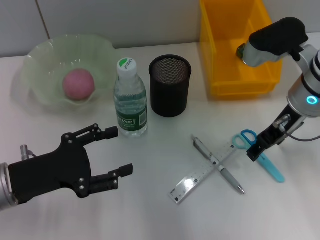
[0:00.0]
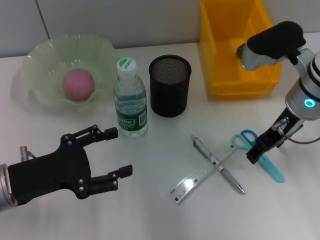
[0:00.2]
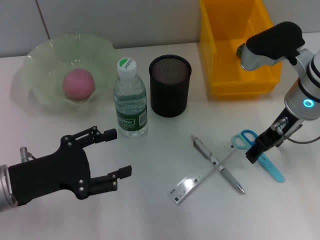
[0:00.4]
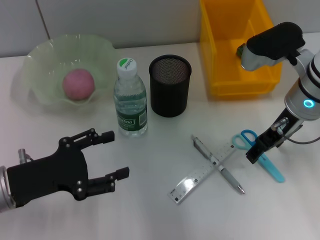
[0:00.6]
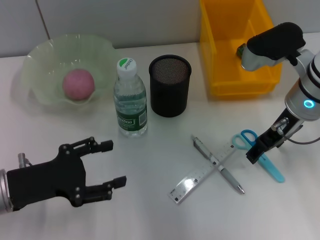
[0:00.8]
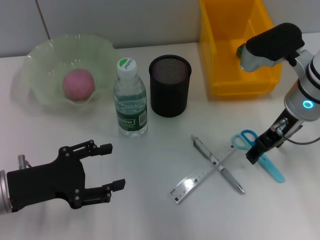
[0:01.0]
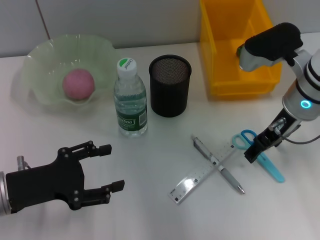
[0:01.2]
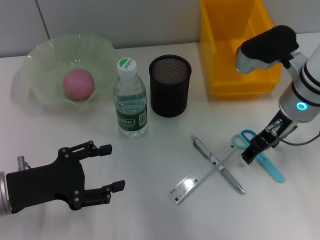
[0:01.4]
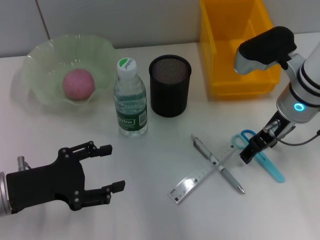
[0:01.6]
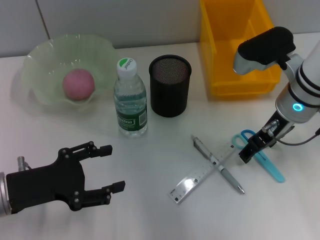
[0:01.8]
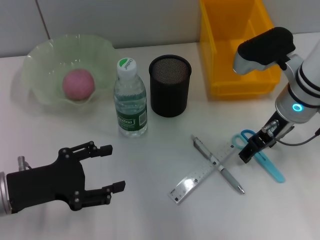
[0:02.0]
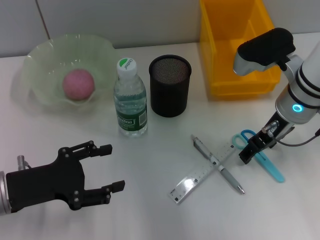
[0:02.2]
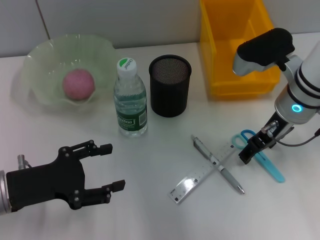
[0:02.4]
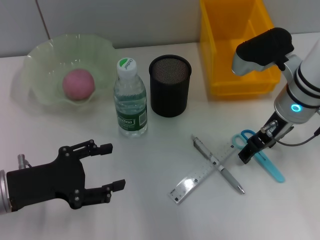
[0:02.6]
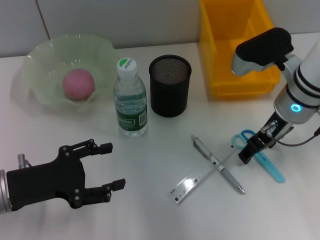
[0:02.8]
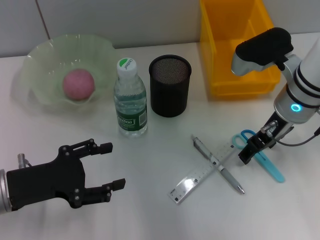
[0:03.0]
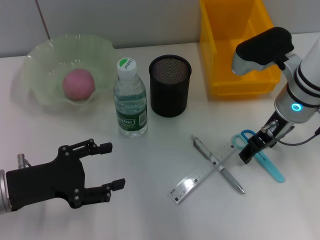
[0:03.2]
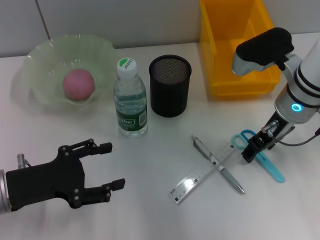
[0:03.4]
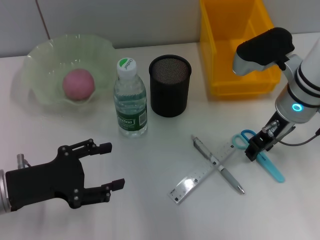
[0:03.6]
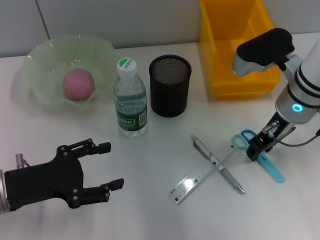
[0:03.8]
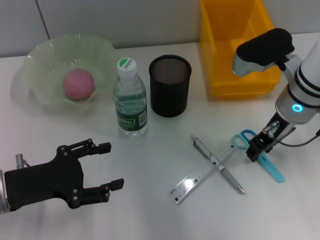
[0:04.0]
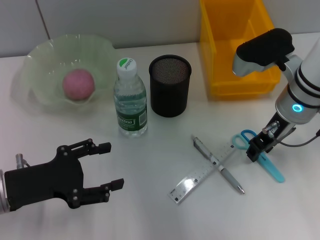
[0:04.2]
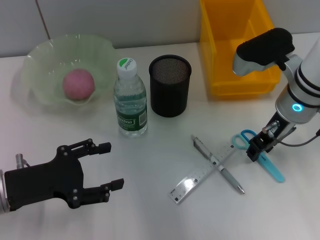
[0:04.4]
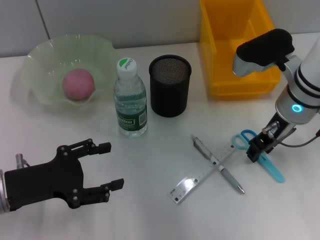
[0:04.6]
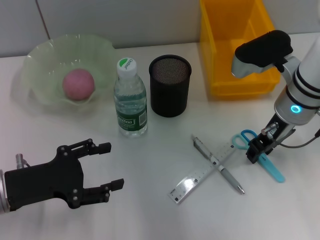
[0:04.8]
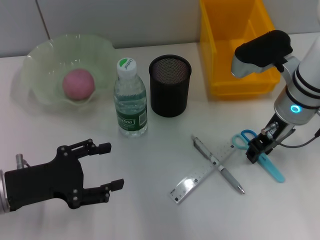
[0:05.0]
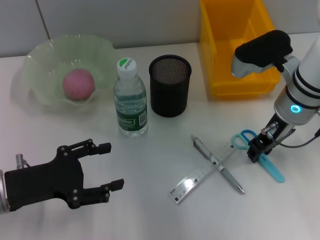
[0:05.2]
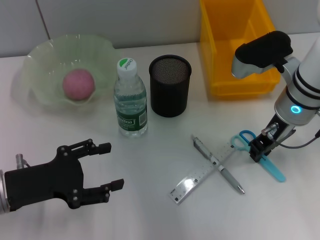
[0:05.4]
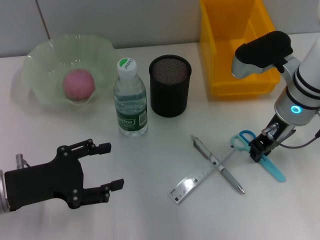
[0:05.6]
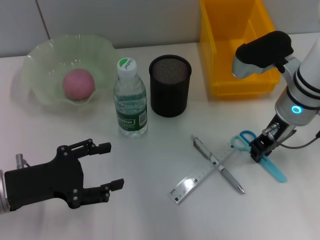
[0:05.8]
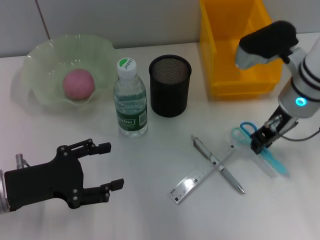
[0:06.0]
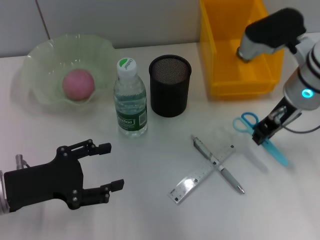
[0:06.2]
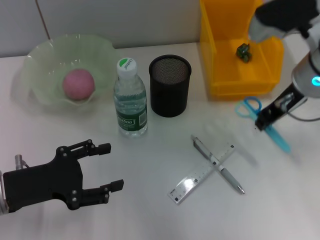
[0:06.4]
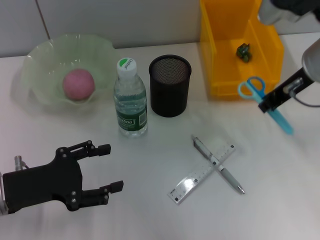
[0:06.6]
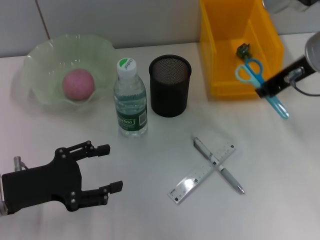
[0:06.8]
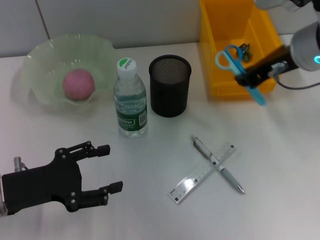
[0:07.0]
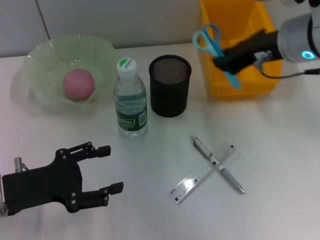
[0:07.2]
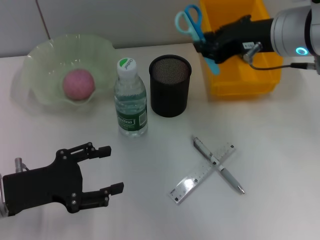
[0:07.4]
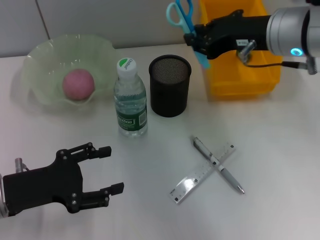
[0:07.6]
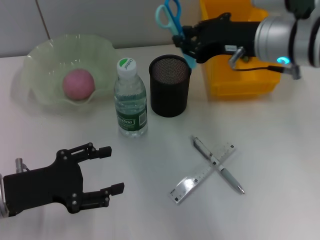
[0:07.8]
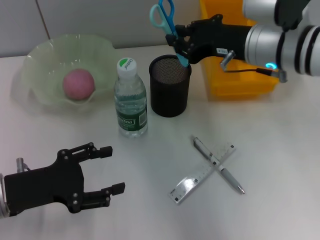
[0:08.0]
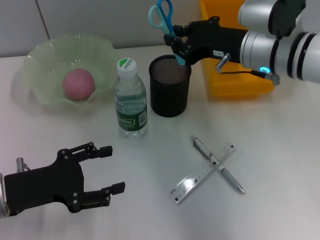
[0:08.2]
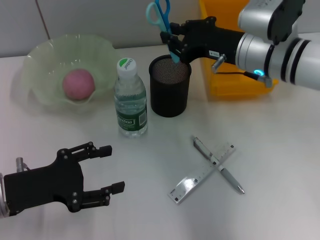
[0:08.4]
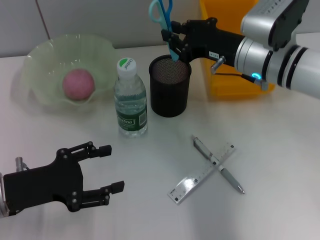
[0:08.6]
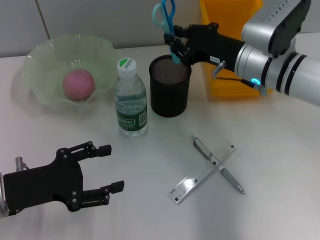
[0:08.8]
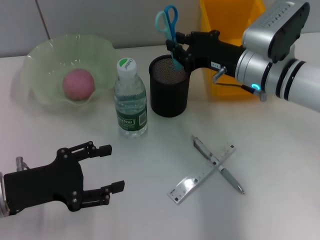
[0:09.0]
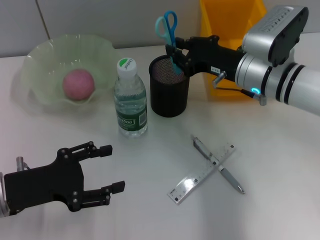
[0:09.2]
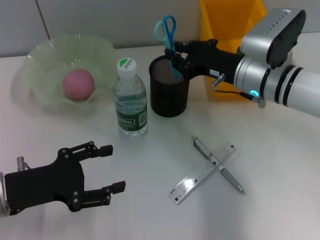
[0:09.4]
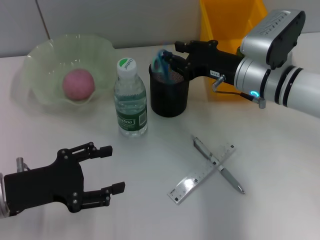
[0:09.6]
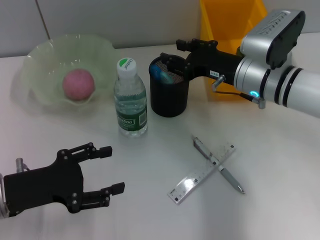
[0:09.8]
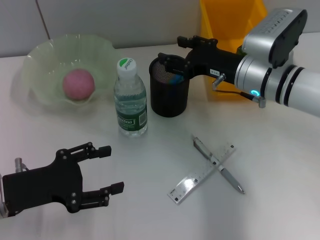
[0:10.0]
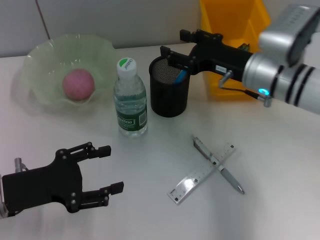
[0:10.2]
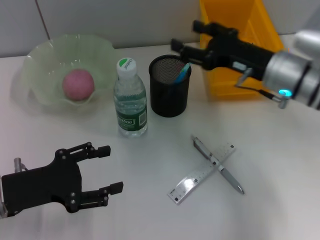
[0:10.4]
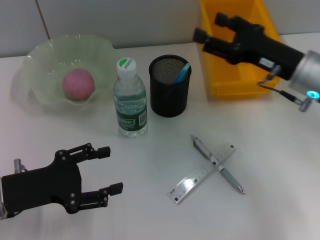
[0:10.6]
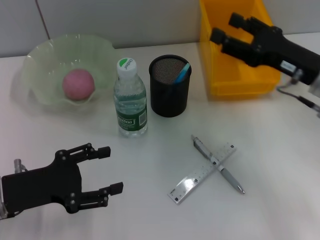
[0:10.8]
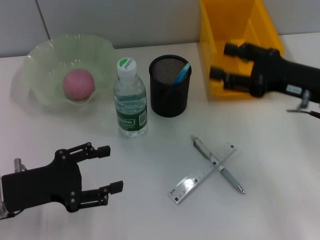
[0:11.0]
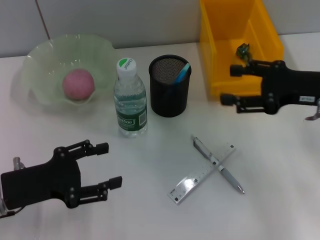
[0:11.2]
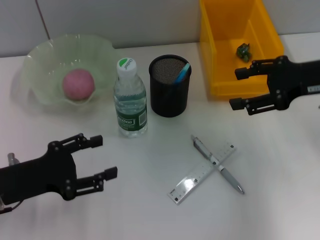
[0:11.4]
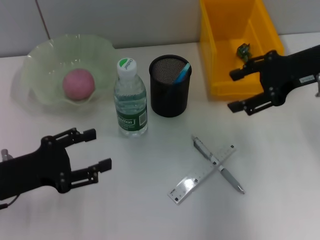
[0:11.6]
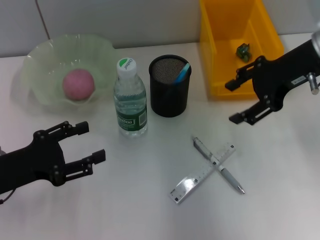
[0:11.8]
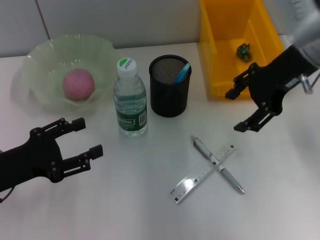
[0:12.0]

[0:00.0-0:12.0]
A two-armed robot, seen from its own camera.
Step, 0:00.0 to 0:05.4: Grab the blue scissors with the right hand.
Step, 0:05.8 to 0:09.4: Place the blue scissors into the pen holder with the right hand.
0:00.0 to 0:01.6: There are only small adjustments of the grippers.
0:01.6 to 0:03.0: Neither gripper changes place.
0:03.0 to 0:04.4: The right gripper closes its fingers.
0:04.4 to 0:06.0: The two grippers keep their place.
0:06.0 to 0:07.6: The right gripper moves upward, about 5 cm.
0:07.6 to 0:09.0: The right gripper heads downward, covering roughly 10 cm.
0:09.0 to 0:10.4: The right gripper opens up.
0:10.4 to 0:12.0: The right gripper shifts some 10 cm upward.

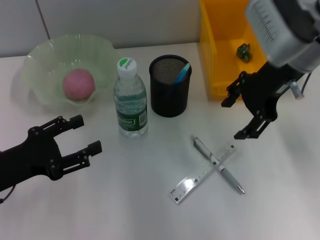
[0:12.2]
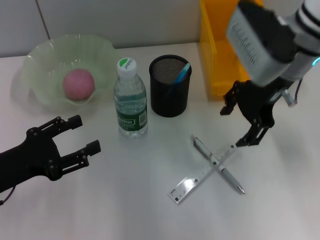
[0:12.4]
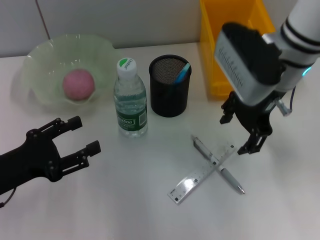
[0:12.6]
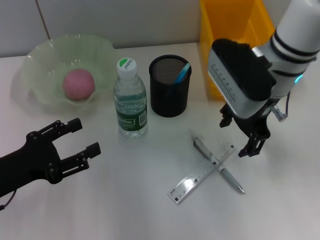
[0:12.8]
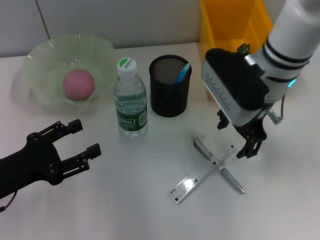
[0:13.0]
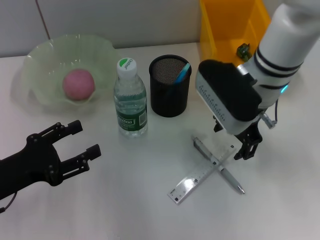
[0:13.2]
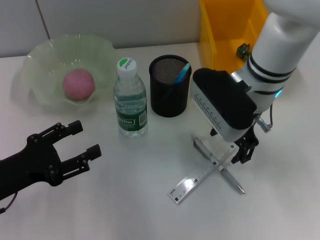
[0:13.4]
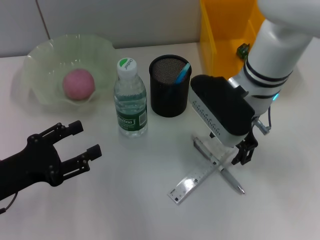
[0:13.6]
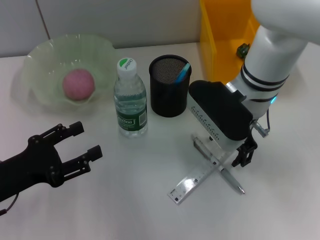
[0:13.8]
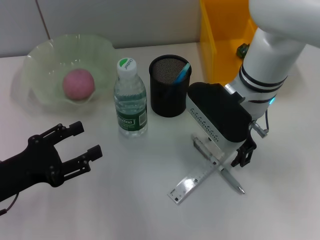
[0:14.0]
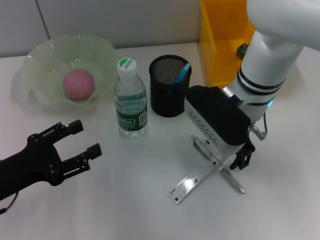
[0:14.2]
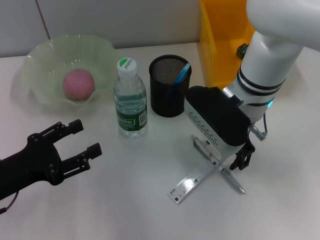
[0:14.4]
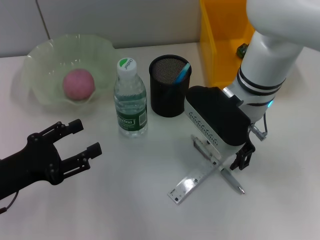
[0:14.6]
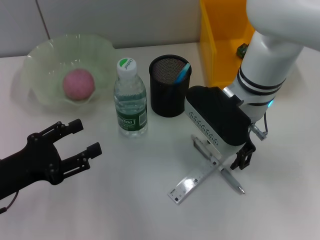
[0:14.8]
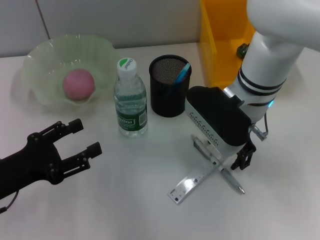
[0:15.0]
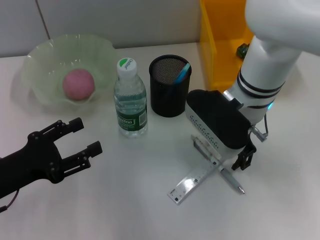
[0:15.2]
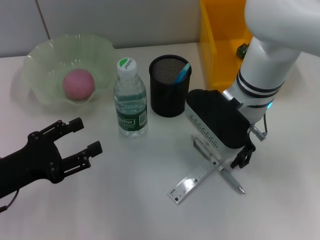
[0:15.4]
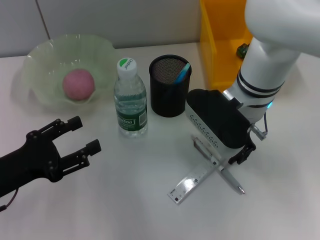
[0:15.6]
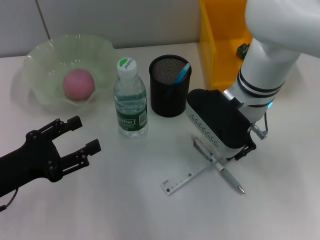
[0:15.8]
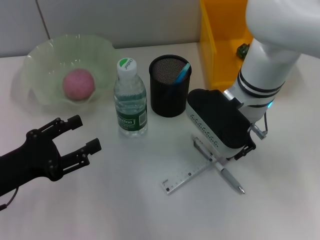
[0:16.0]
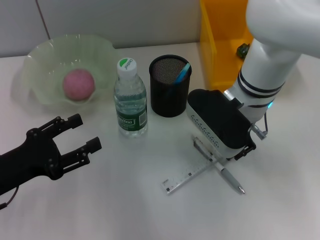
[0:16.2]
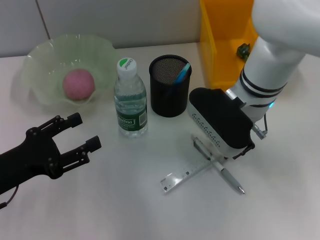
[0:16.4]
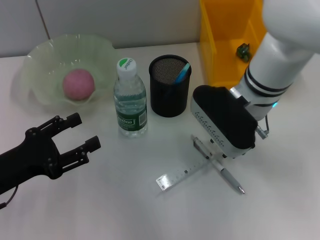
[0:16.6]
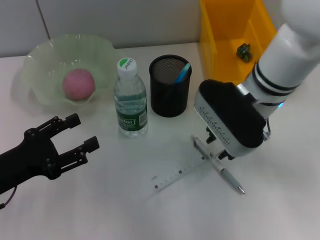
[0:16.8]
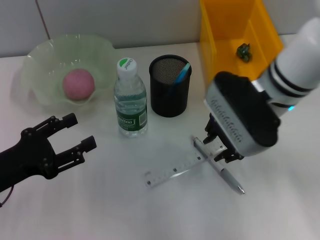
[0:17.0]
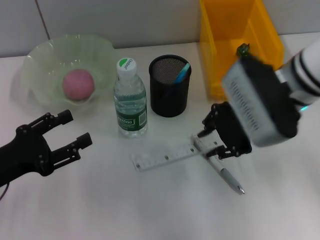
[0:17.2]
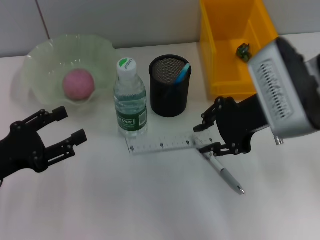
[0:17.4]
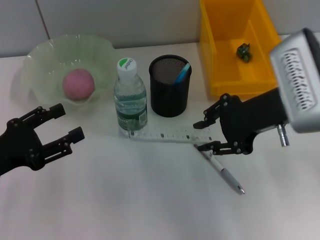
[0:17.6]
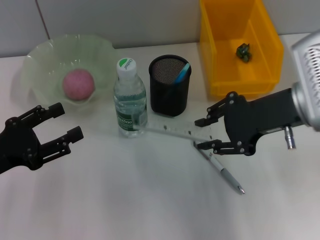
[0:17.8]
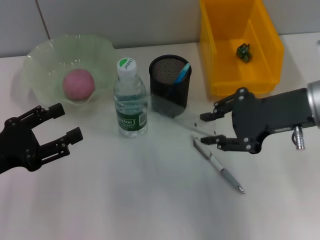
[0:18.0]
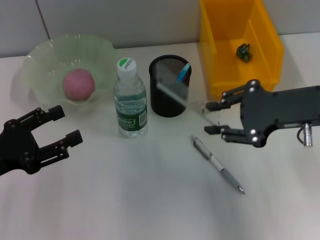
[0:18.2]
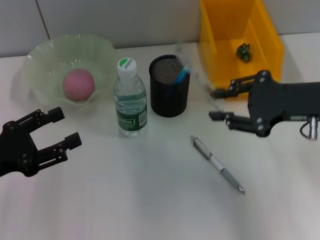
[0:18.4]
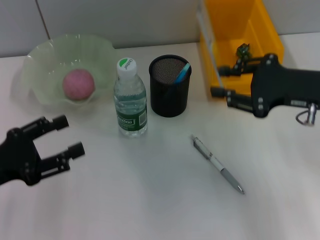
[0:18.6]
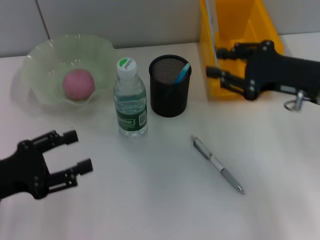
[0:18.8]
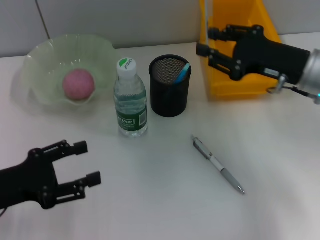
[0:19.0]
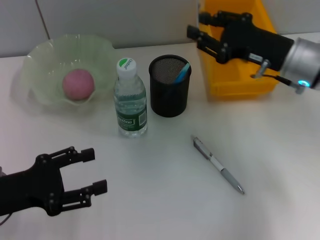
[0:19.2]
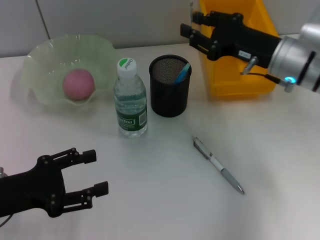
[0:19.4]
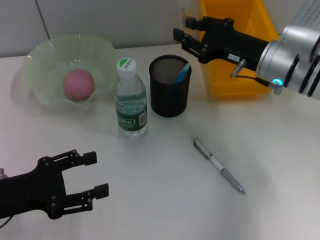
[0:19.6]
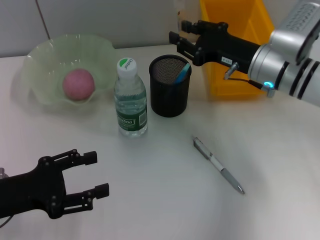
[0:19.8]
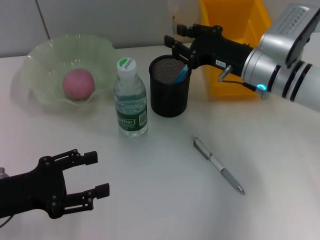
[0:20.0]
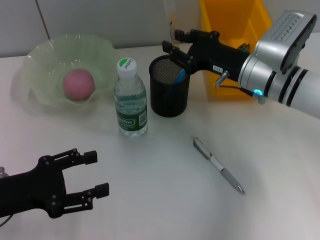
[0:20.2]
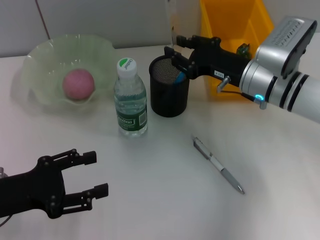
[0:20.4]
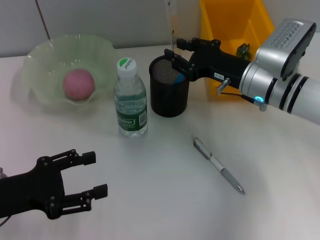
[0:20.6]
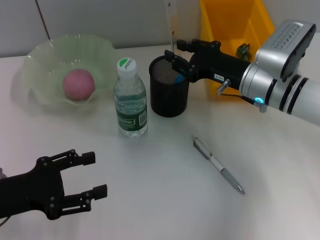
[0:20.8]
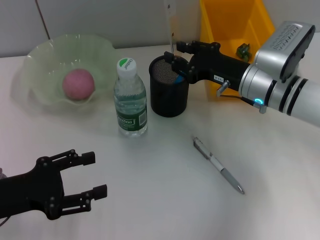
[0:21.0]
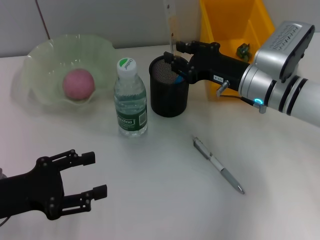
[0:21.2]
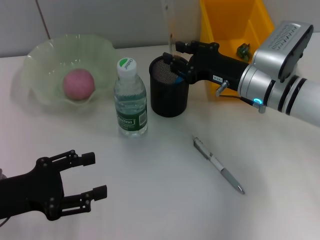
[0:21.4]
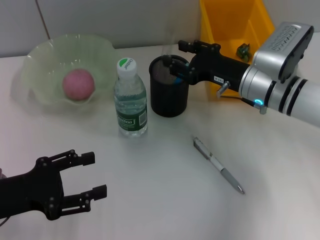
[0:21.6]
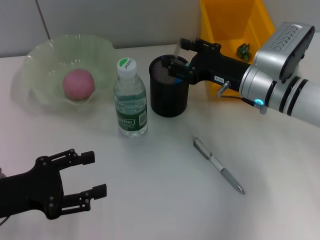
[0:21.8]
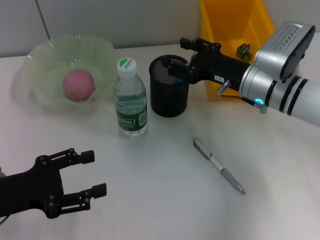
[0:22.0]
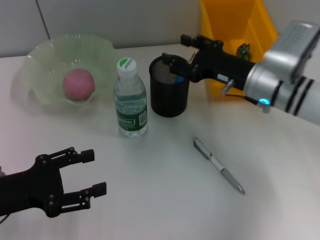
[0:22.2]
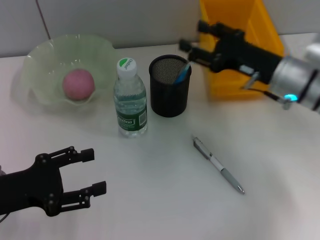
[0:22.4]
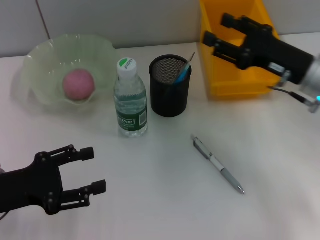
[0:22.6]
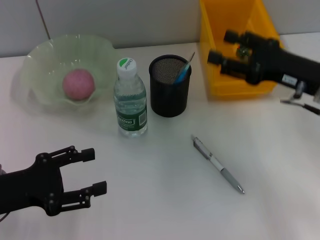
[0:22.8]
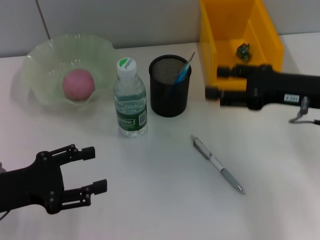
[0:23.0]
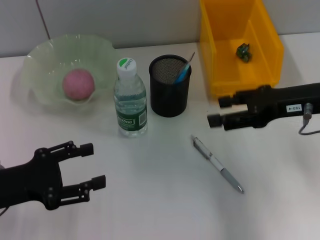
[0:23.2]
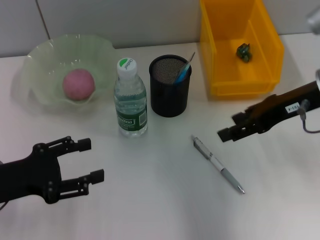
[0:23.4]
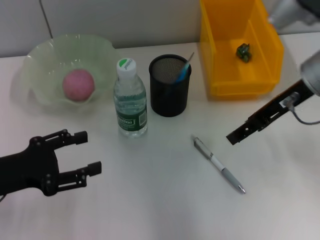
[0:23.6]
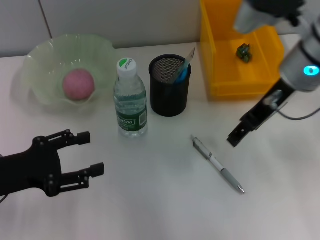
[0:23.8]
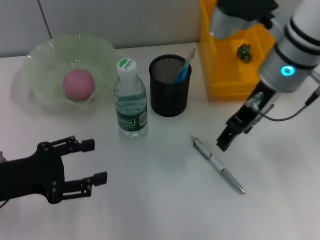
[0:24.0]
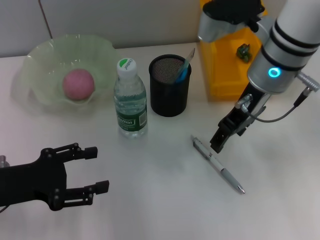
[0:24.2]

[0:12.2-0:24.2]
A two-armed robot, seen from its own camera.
Step, 0:12.2 to 0:16.2: Grab the ruler with the right hand.
Step, 0:16.4 to 0:21.8: Place the ruler into the pen holder with the right hand.
0:12.2 to 0:13.8: The right gripper goes approximately 10 cm downward and to the left.
0:13.8 to 0:15.2: Both grippers stay put.
0:15.2 to 0:16.6: The right gripper closes.
0:16.6 to 0:18.2: The right gripper is displaced to the right and backward by roughly 15 cm.
0:18.2 to 0:19.8: The right gripper travels forward and downward by about 10 cm.
0:19.8 to 0:21.2: The grippers make only small movements.
0:21.2 to 0:22.6: The right gripper heads to the right, covering approximately 5 cm.
0:22.6 to 0:24.2: The right gripper travels to the left and upward by some 15 cm.
